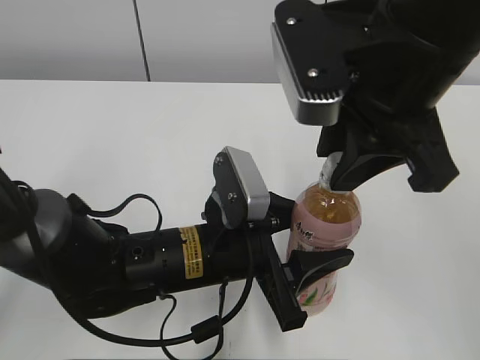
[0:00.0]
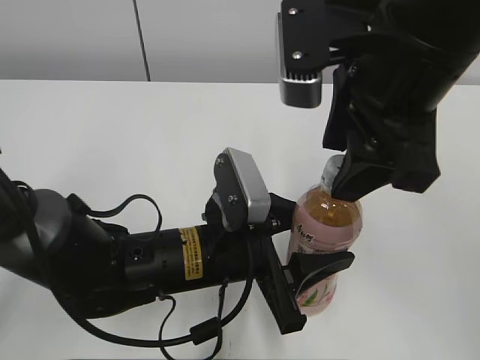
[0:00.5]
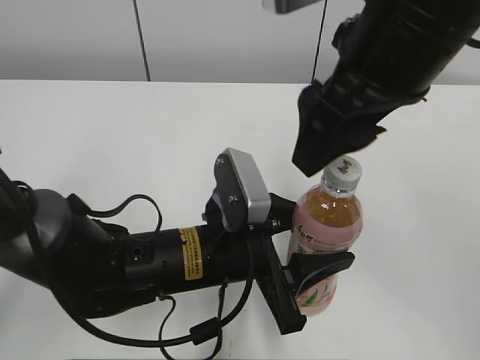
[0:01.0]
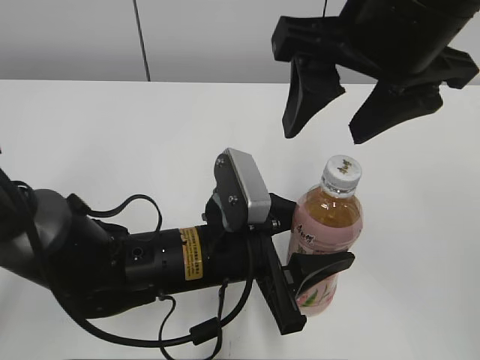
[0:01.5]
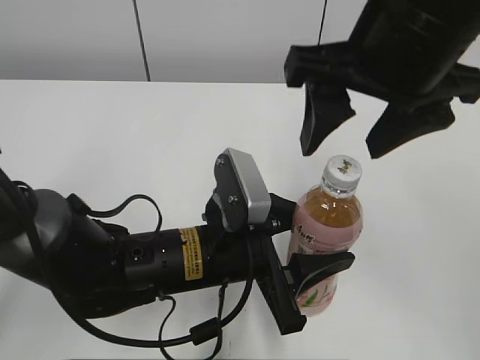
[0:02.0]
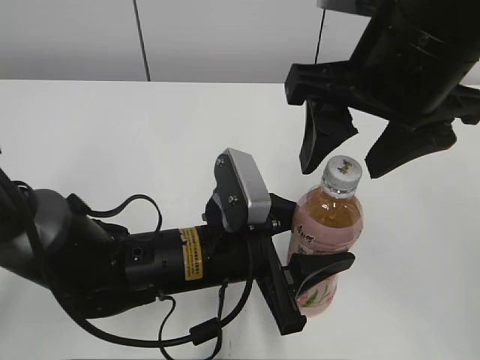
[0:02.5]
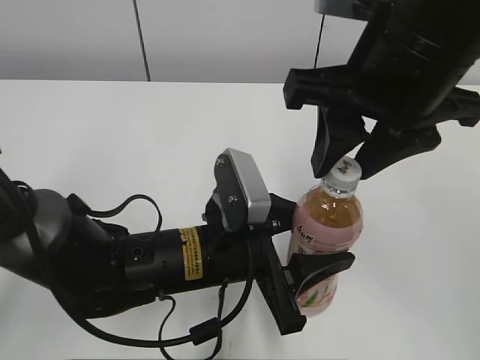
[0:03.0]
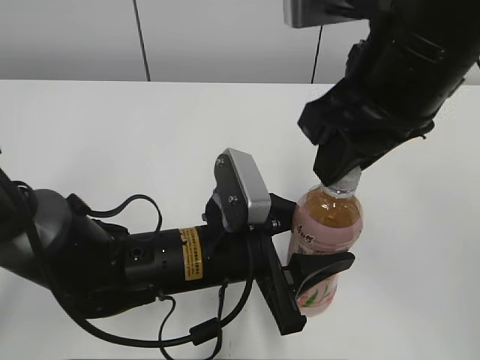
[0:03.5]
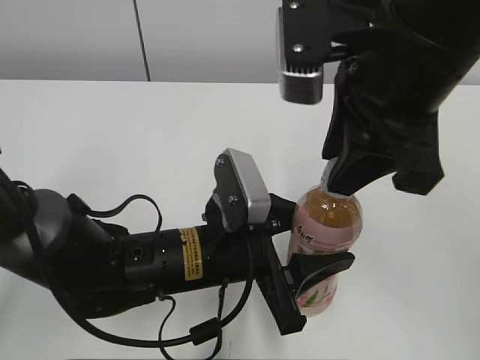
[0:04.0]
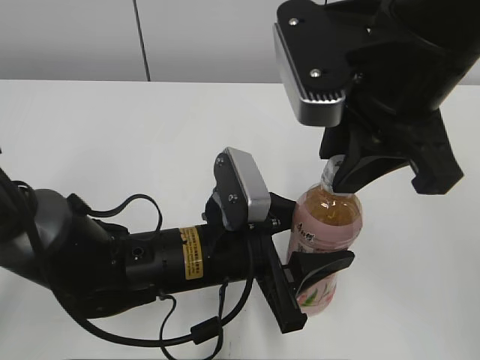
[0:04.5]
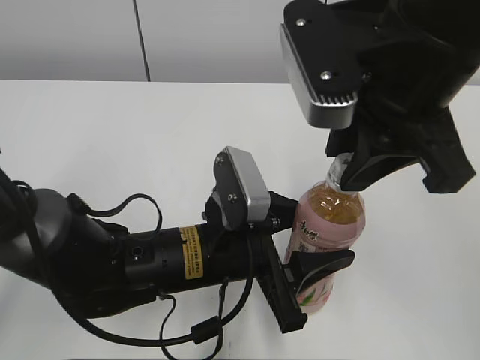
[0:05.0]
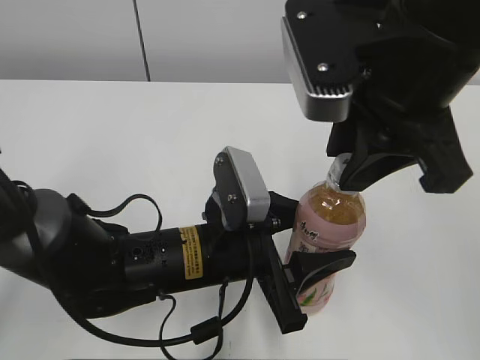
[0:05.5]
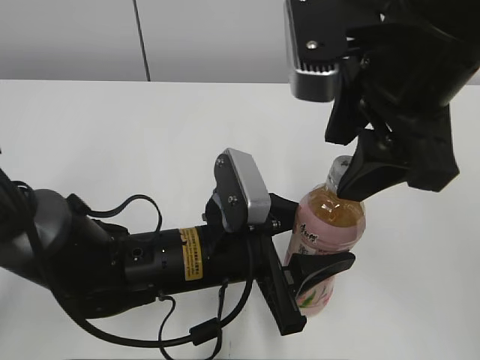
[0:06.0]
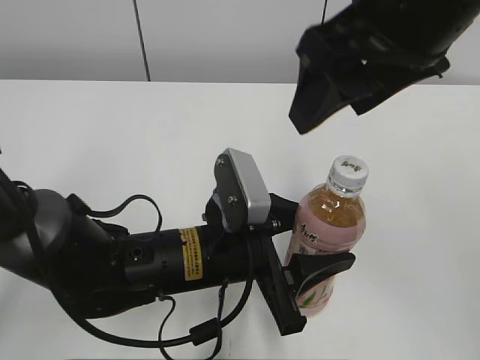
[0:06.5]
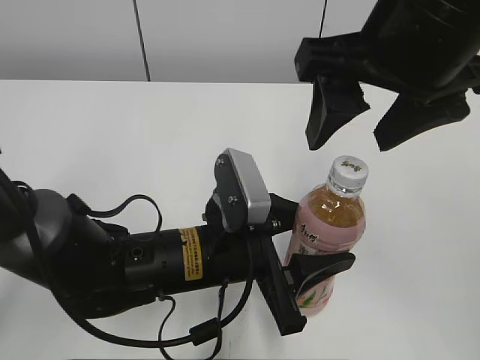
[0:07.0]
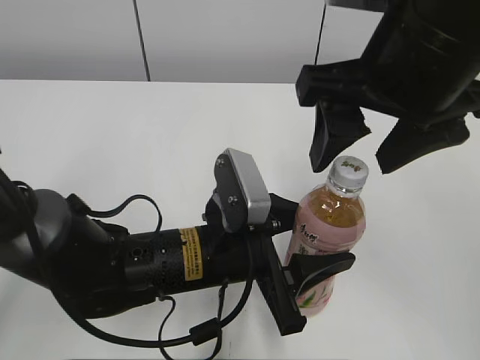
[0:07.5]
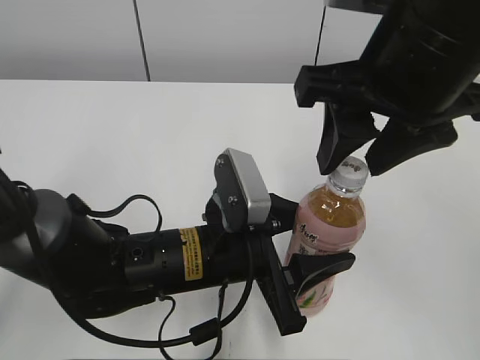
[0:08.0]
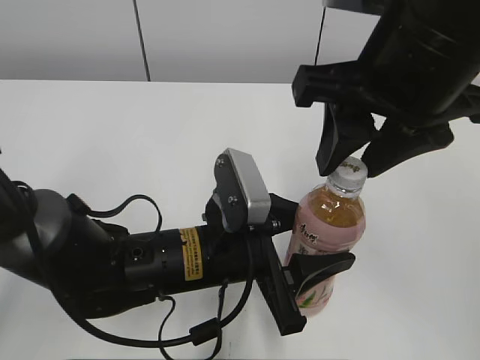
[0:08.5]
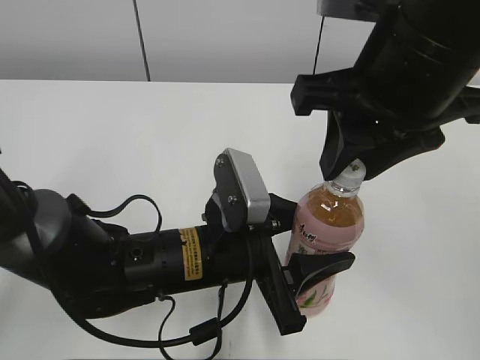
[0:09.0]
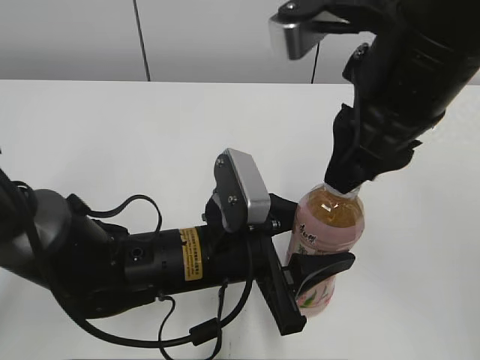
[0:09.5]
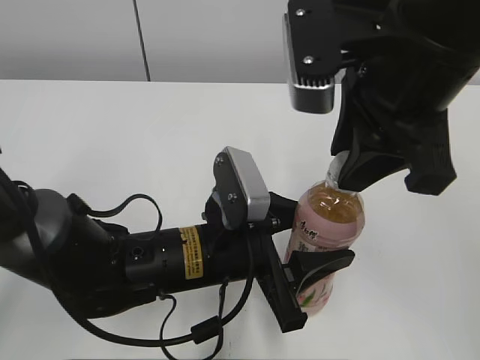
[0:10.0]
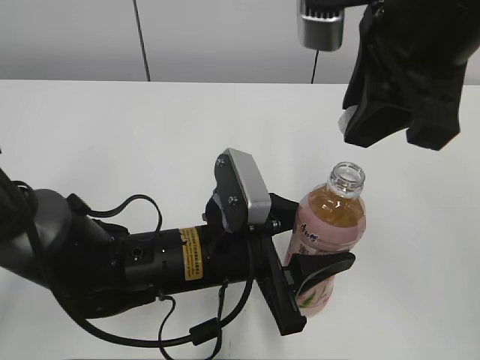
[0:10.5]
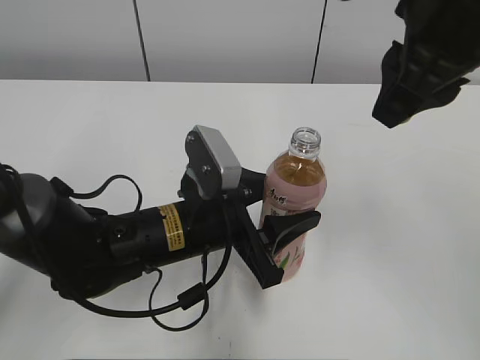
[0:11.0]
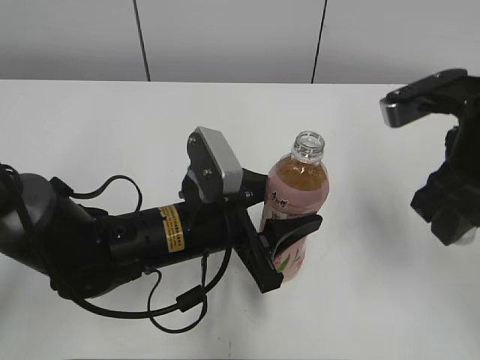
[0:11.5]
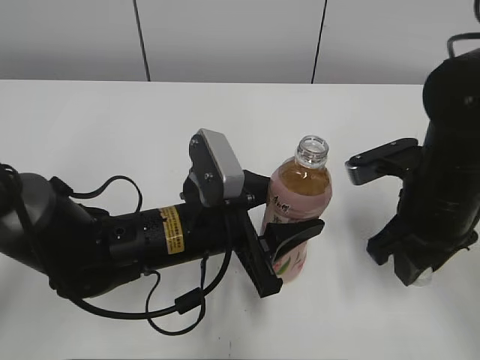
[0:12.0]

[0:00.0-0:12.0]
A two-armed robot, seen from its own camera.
0:00.0 to 0:02.0: The right gripper opens.
0:02.0 to 0:04.0: The right gripper closes.
0:04.0 to 0:06.0: The right gripper opens up.
0:08.0 to 0:10.0: The right gripper closes its fingers.
0:10.0 to 0:12.0: The right gripper shifts some 15 cm downward and to the right.

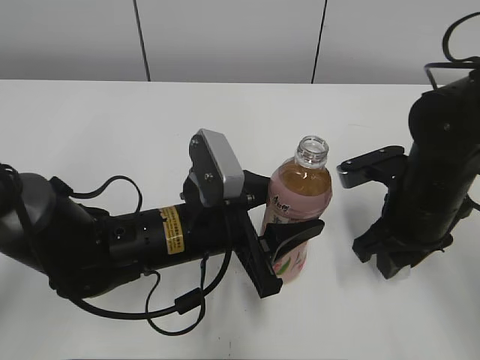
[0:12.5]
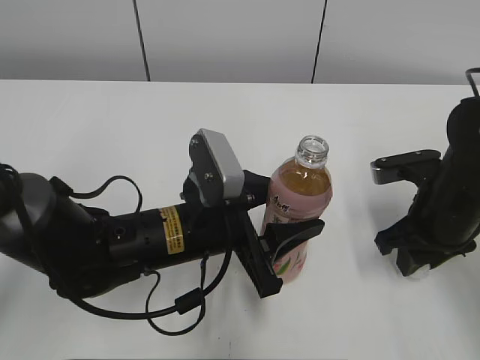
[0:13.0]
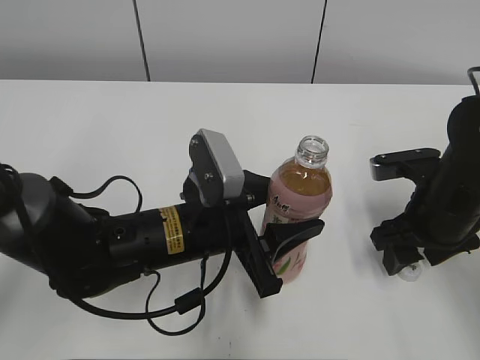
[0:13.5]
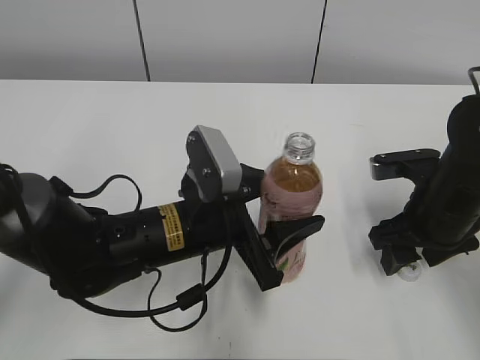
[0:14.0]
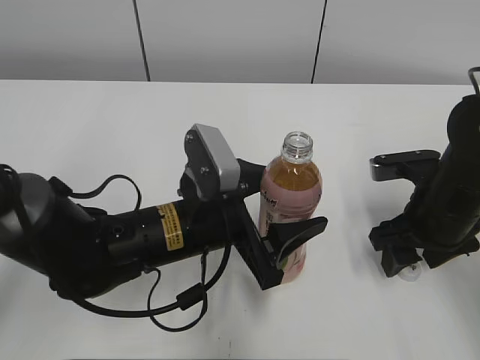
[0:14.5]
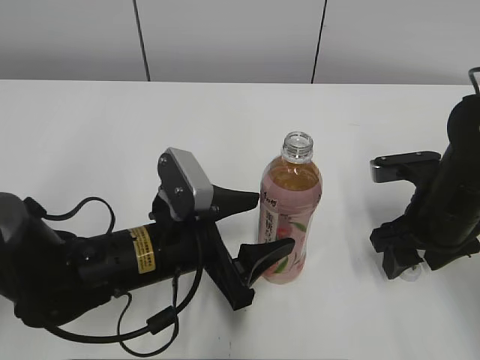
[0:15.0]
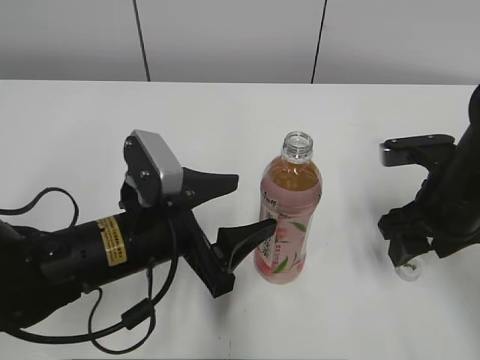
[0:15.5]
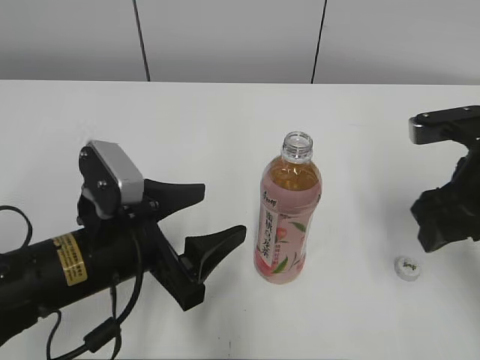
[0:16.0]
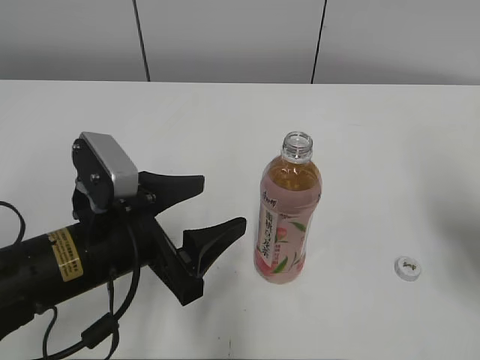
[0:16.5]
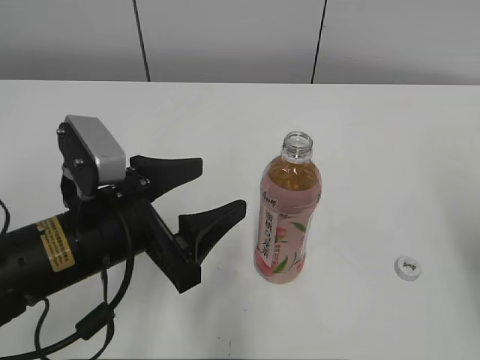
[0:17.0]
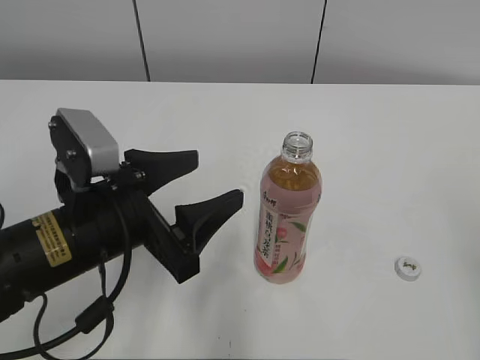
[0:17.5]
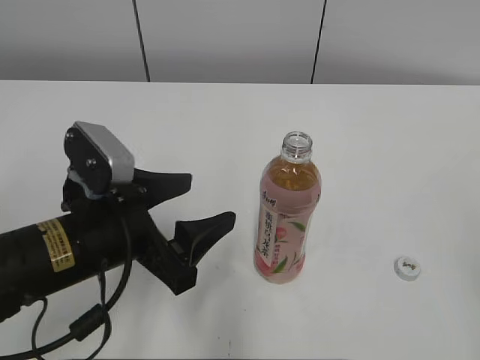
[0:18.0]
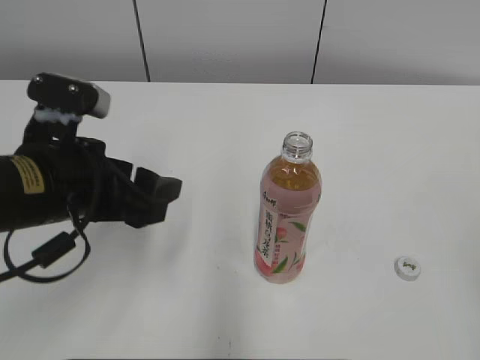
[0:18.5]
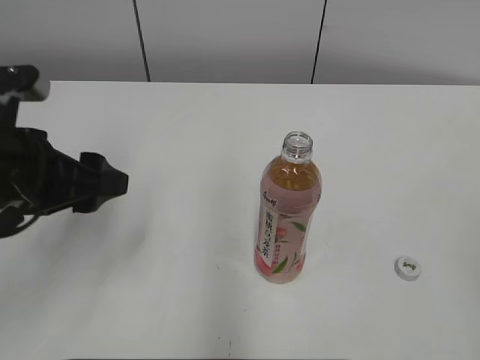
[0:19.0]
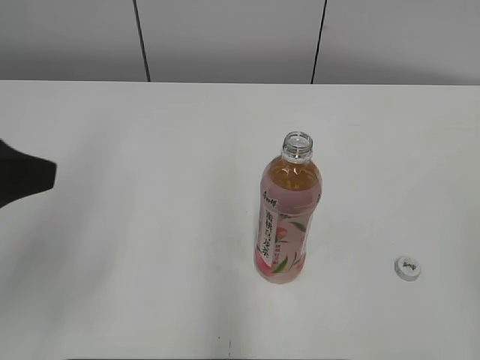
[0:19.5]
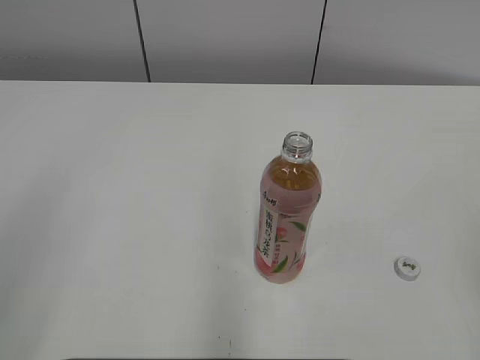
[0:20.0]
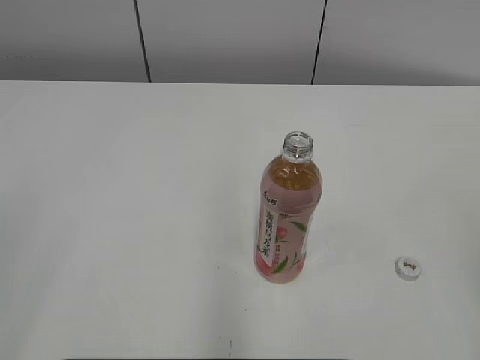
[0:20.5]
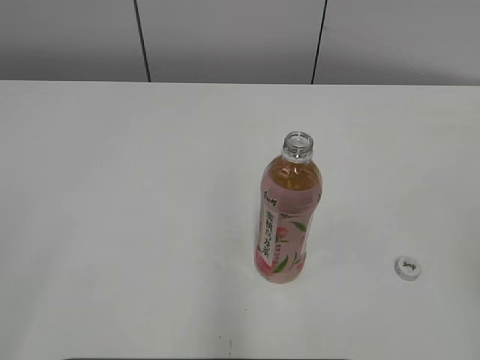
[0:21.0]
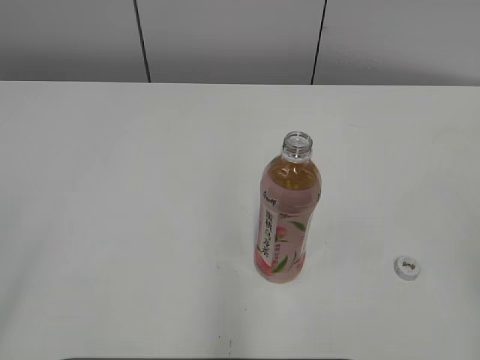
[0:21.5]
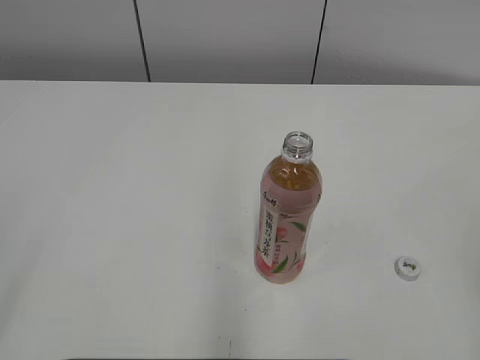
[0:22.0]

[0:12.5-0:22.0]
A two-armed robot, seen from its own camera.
0:12.5 to 0:14.5: The right gripper opens up, while the left gripper opens.
0:14.5 to 0:16.5: The right gripper travels upward and to the right by approximately 15 cm. Meanwhile the left gripper heads to the left, covering roughly 10 cm.
0:16.5 to 0:18.0: The right gripper moves backward, some 20 cm.
0:18.0 to 0:20.0: The left gripper is displaced upward, to the left and backward by roughly 25 cm.
